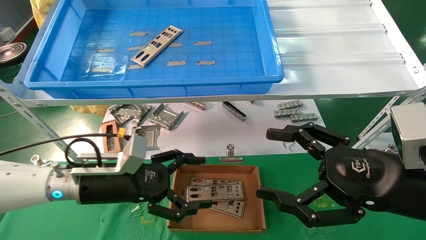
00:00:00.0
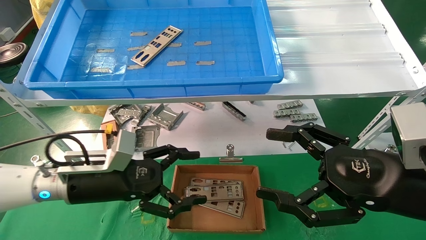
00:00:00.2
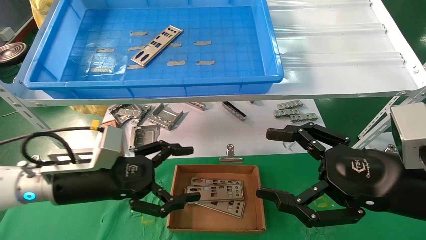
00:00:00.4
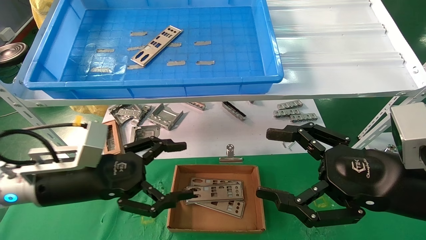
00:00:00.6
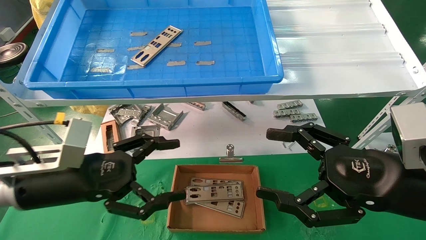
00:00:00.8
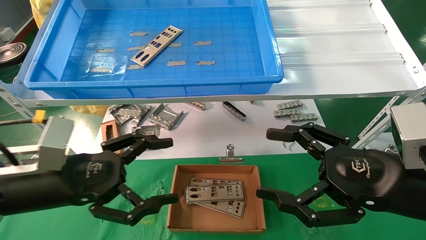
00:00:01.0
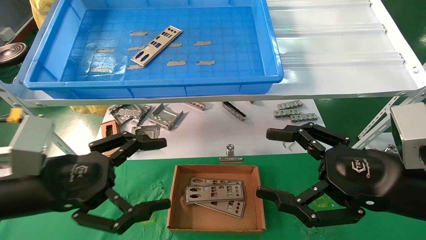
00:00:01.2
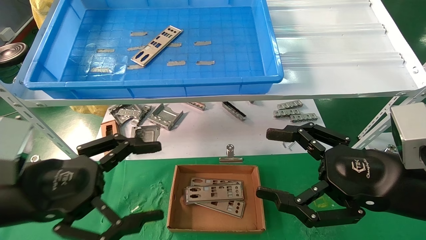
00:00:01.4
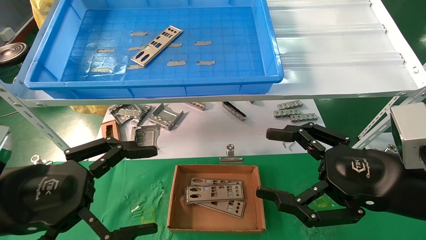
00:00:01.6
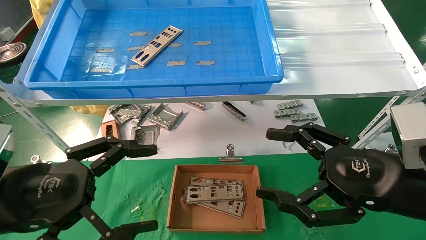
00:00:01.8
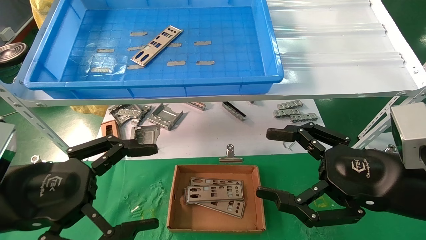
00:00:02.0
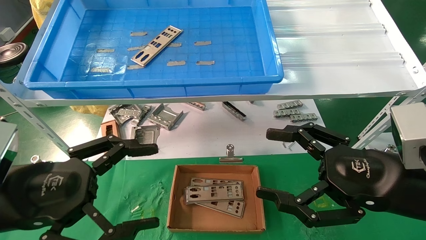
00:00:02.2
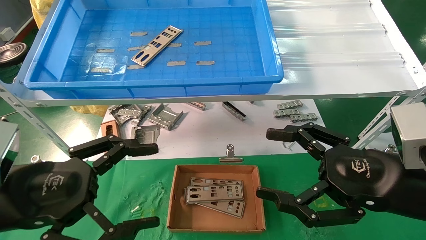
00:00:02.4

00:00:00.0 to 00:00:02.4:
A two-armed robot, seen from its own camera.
Task of the whole recording: pick up the parts on the tray and put them in the cardboard box.
00:00:00.0 to 00:00:01.2: The left gripper is displaced backward, upward and to the left by approximately 15 cm.
00:00:01.2 to 00:00:02.4: The grippers move only a little.
